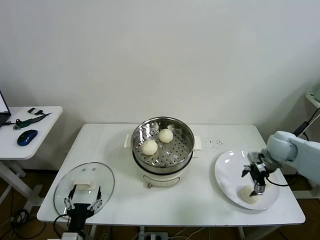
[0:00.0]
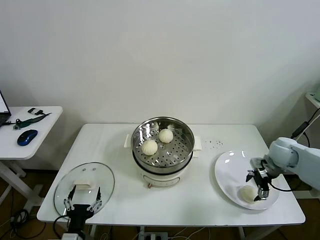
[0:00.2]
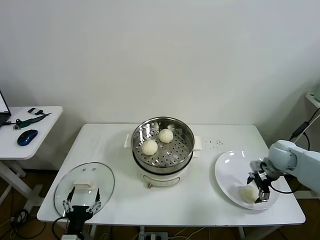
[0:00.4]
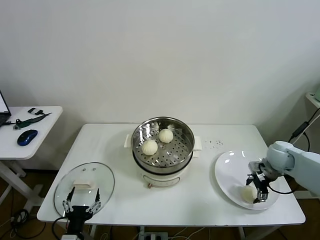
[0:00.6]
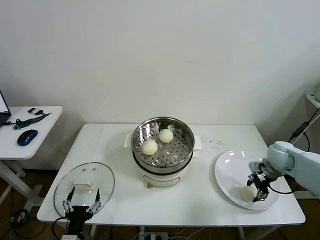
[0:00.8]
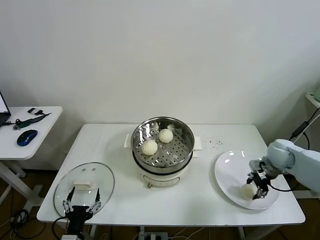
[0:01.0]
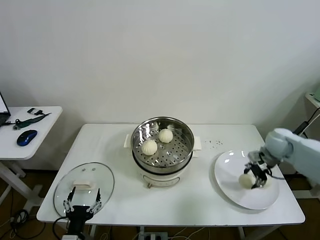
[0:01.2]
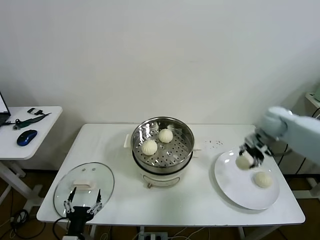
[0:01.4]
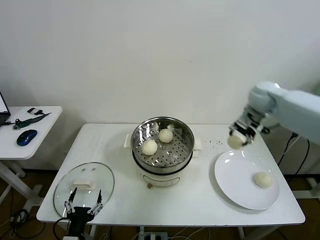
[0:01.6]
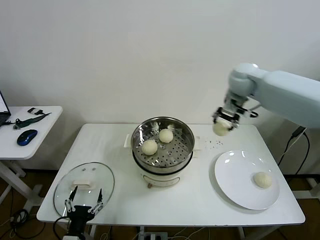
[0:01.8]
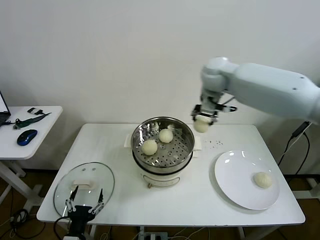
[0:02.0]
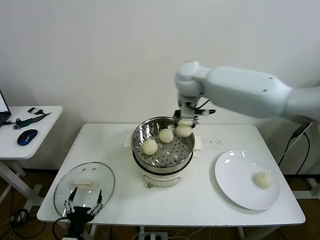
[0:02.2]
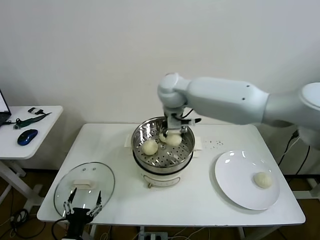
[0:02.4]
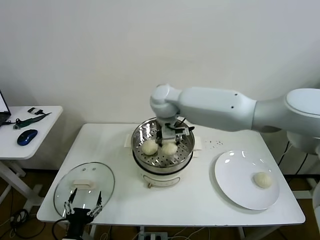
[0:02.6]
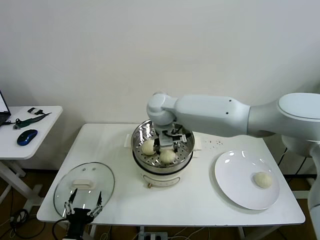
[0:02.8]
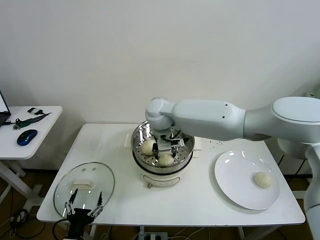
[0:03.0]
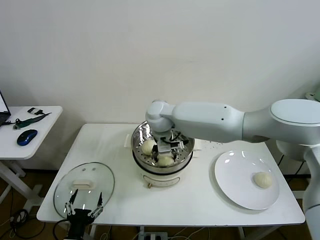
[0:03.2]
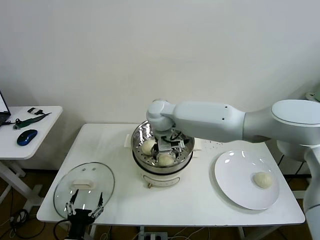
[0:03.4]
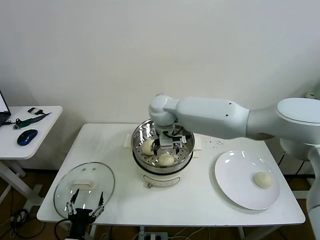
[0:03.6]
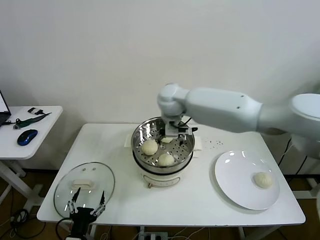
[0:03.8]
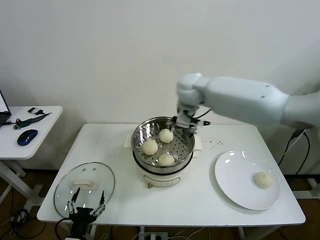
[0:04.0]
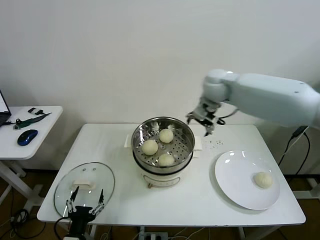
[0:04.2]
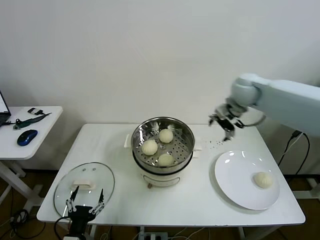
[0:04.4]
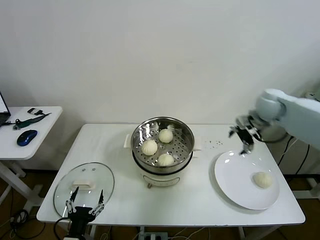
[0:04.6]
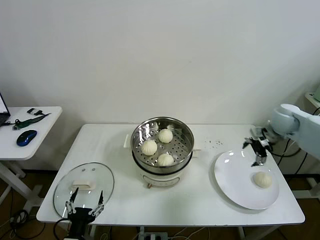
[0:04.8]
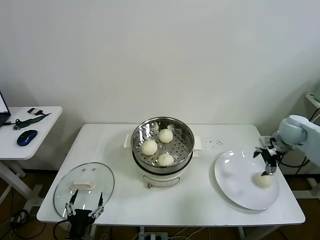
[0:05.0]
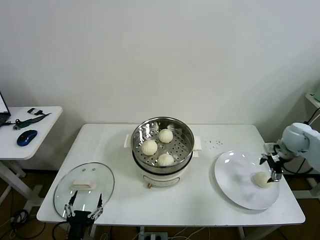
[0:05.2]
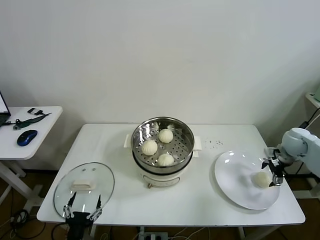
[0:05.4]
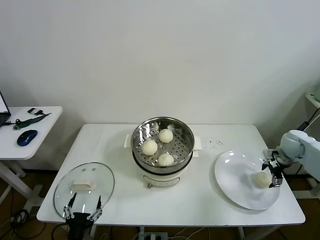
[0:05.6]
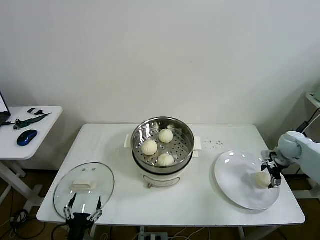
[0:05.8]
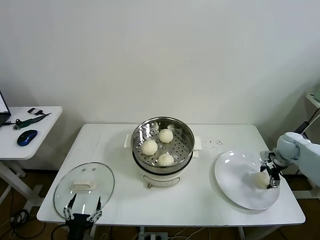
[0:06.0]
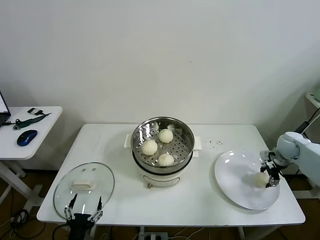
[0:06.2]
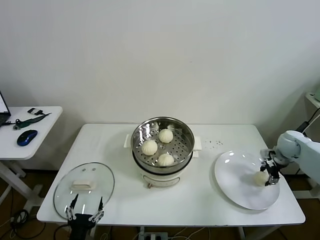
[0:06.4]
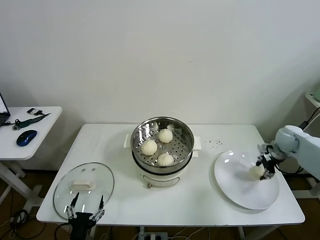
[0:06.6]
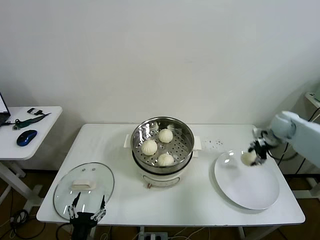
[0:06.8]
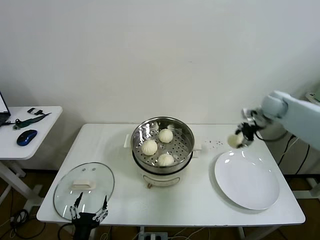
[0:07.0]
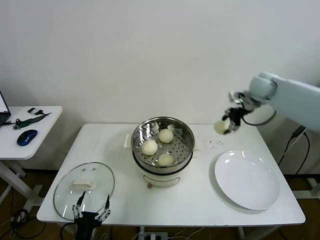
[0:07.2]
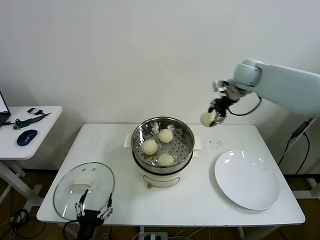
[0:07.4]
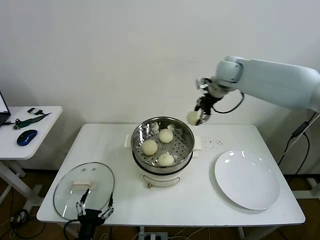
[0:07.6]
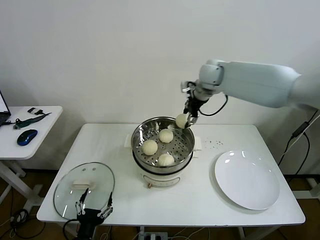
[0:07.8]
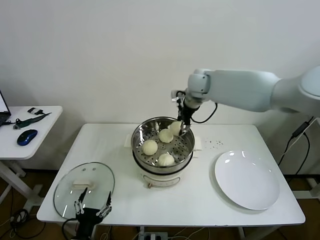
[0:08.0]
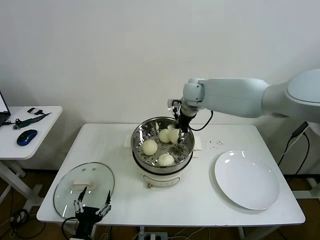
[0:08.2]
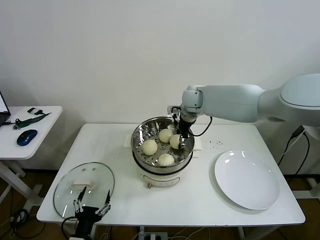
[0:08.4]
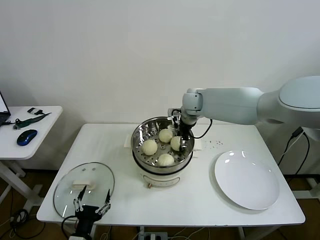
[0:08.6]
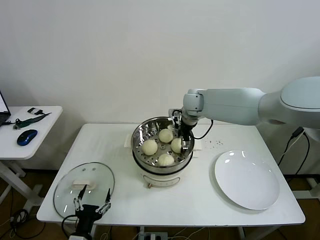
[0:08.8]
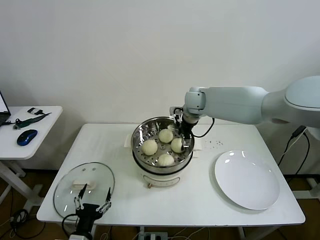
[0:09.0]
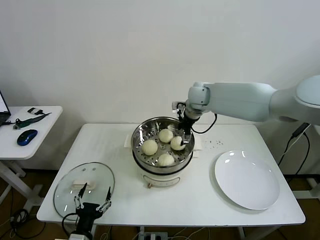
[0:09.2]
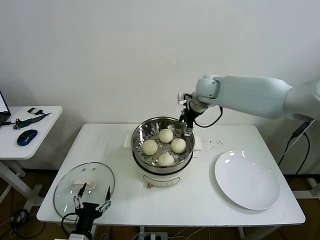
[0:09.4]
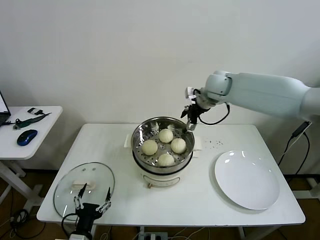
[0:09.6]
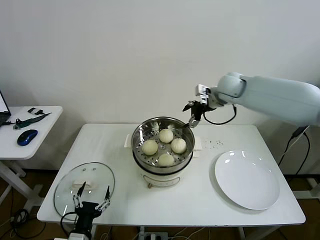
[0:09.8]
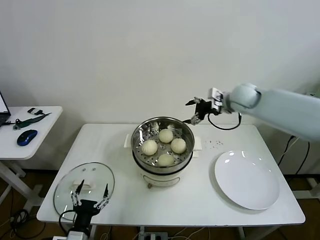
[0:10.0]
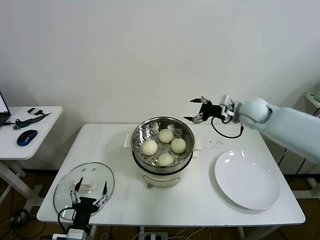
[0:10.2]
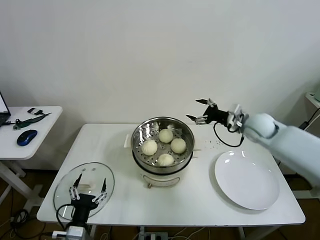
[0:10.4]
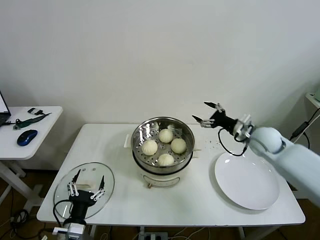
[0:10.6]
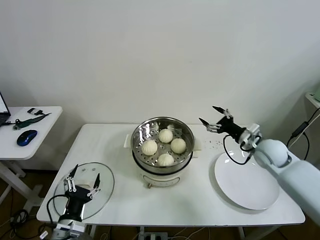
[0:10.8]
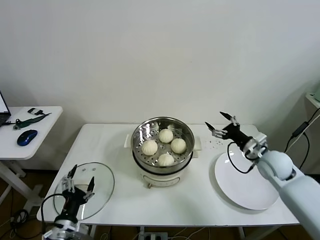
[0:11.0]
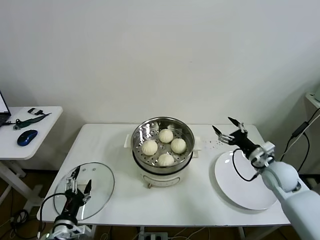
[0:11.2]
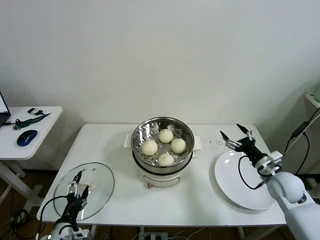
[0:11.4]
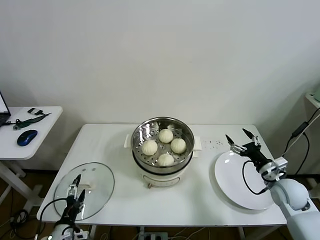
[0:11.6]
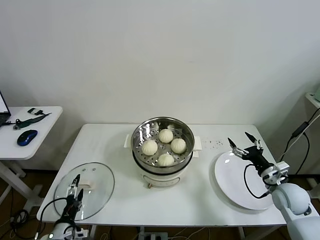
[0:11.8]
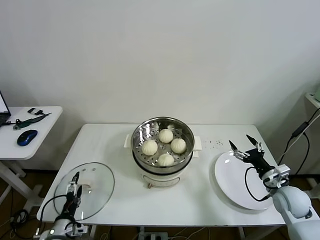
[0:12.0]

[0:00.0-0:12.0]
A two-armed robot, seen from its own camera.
Task of the whole recording: take steamed baozi put them in steamer then cover it.
Step, 0:01.2 to 0:03.4: Place the baozi on the steamer with right gripper.
Step, 0:03.6 to 0:06.2: Grasp the baozi in the plate with right gripper.
Step, 0:06.4 to 0:08.6: Place the baozi on the steamer with right gripper.
0:00.0 to 0:01.6: The right gripper moves upward, forward and to the left, some 20 cm, and closes.
0:01.6 to 0:03.0: The right gripper is displaced to the left by roughly 30 cm.
0:03.0 to 0:04.4: The right gripper moves to the right, approximately 30 cm, and opens.
0:04.4 to 0:06.0: The right gripper goes about 30 cm downward and to the right.
0:06.0 to 0:07.6: The right gripper moves to the left, upward and forward, approximately 40 cm, and closes.
0:07.6 to 0:09.0: The right gripper travels downward and to the left by approximately 15 cm, and opens.
0:09.0 to 0:10.4: The right gripper travels to the right and backward by some 20 cm.
0:10.4 to 0:12.0: The right gripper shifts some 25 cm backward, downward and to the right, while the left gripper shifts approximately 10 cm to the left and downward.

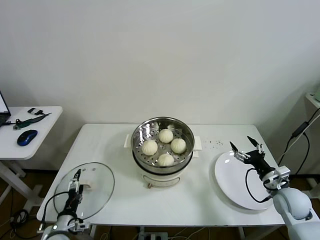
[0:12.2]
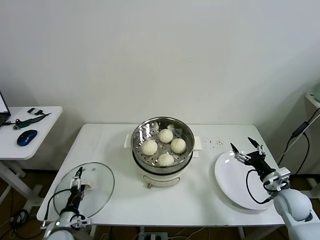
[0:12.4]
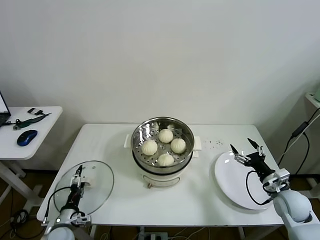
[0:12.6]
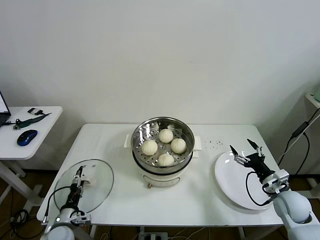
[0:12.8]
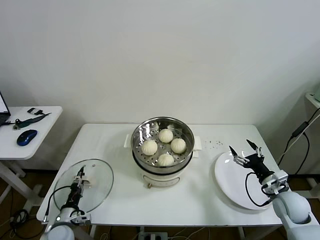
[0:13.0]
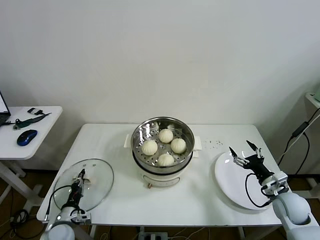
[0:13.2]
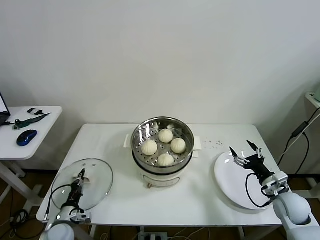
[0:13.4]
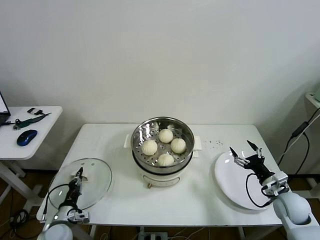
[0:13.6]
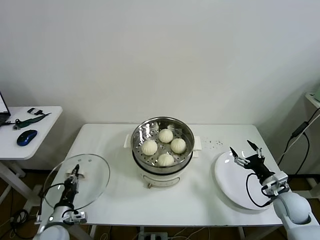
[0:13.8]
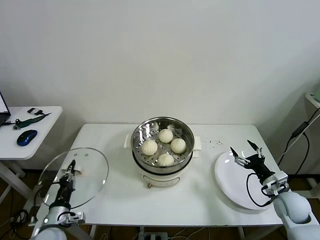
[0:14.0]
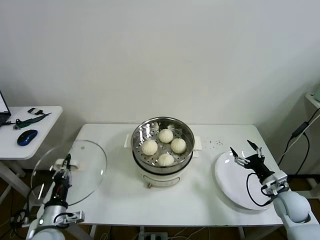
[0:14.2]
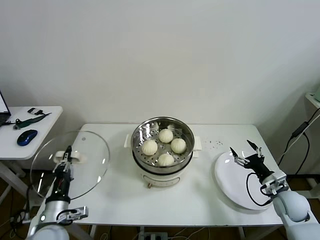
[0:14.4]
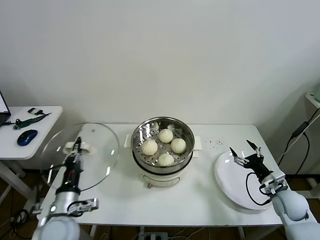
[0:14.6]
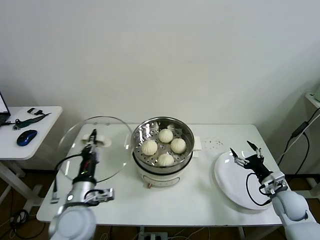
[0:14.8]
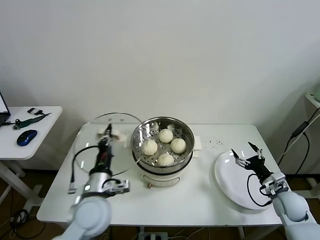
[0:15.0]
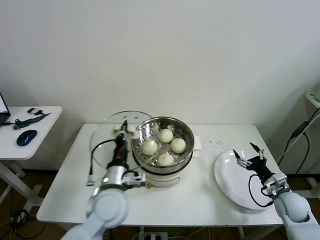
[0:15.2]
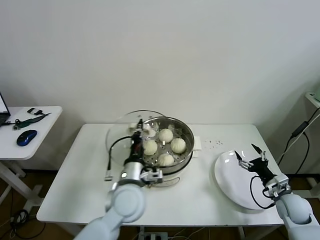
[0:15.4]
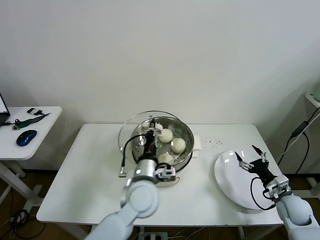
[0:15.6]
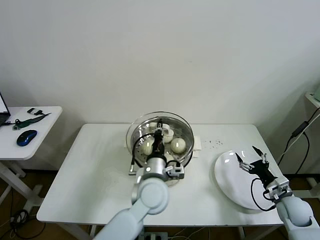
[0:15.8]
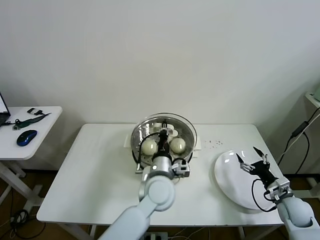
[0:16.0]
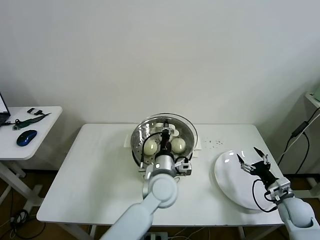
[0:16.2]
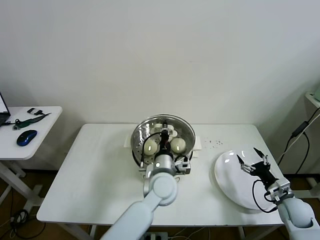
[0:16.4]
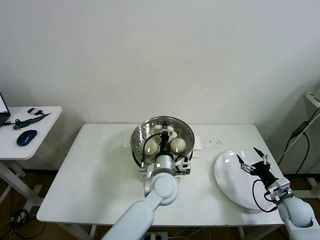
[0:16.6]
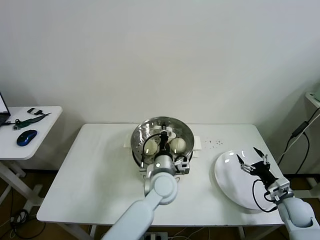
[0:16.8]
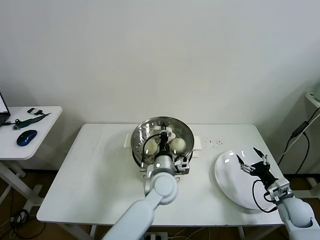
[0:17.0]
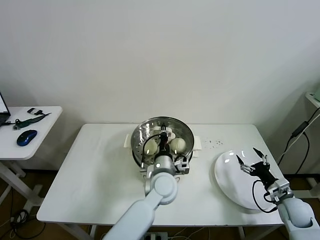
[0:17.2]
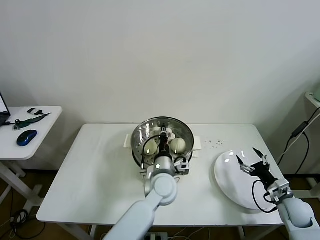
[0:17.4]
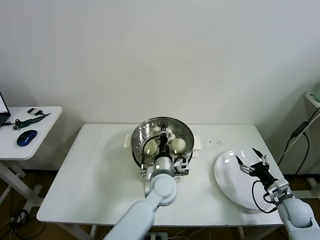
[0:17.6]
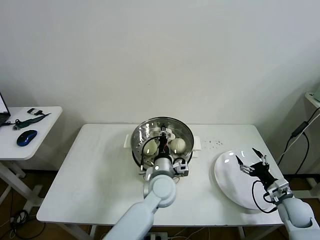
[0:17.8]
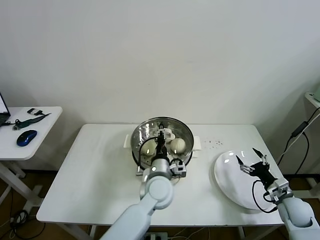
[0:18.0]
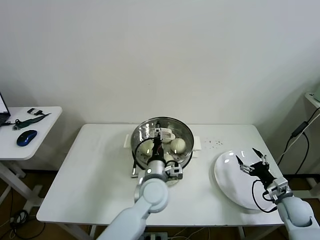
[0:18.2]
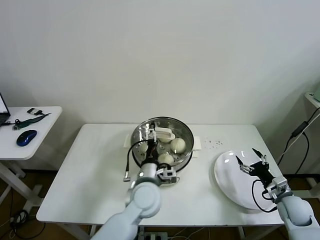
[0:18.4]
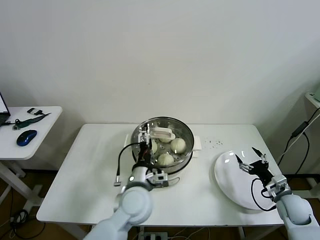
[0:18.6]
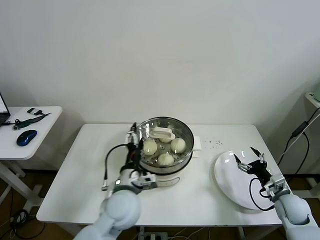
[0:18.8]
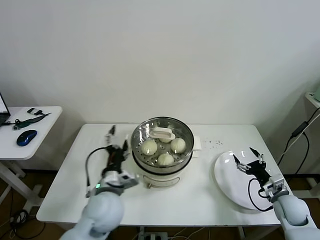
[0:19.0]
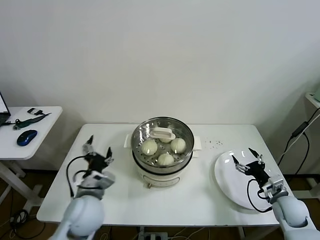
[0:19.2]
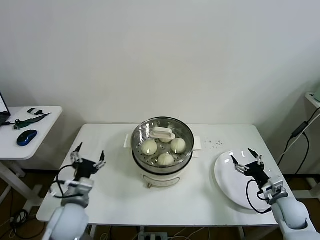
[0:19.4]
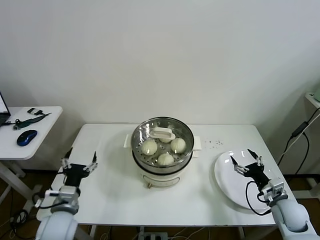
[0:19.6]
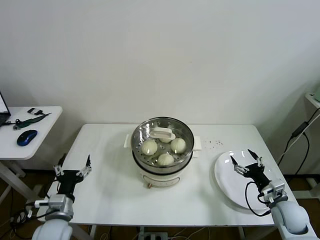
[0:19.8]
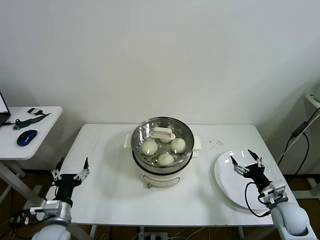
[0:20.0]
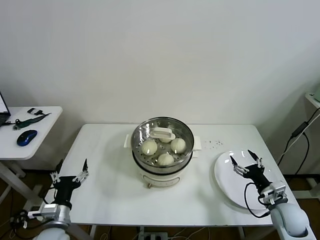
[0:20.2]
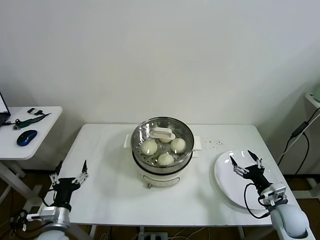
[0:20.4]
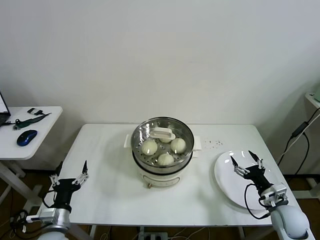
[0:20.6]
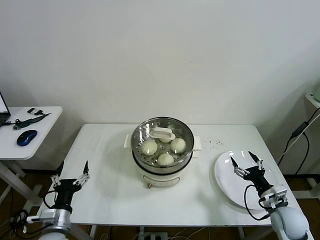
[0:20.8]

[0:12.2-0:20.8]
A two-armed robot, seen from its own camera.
Task of the whole recording: take steamed baozi put them in steamer then cover it.
Step, 0:13.4 to 0:17.8: Place the pot lid on the steamer with left gripper.
0:12.2 to 0:13.6: The left gripper closes.
0:13.6 to 0:15.0: The left gripper moves upward and to the right, roughly 25 cm.
0:15.0 to 0:16.6: The left gripper moves to the right and forward, some 20 cm.
0:16.6 to 0:18.0: The grippers move only a little.
0:18.0 to 0:19.4: The left gripper goes about 25 cm to the left, and opens its fingers.
0:19.4 to 0:20.8: The left gripper shifts roughly 10 cm to the left, downward and backward.

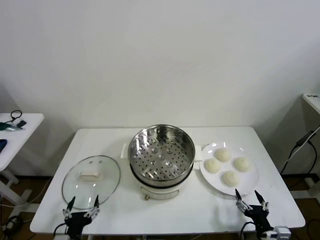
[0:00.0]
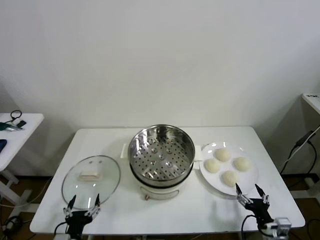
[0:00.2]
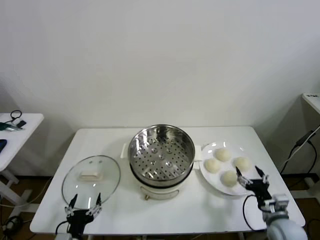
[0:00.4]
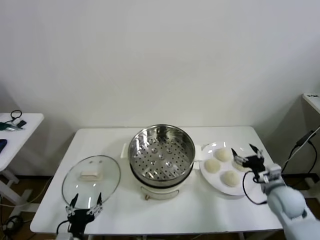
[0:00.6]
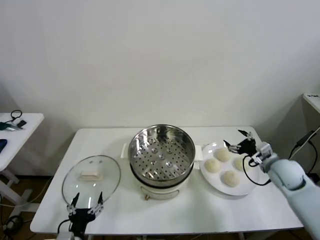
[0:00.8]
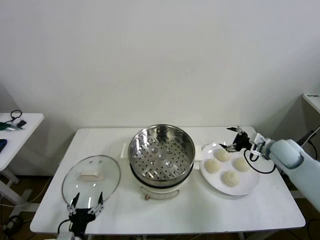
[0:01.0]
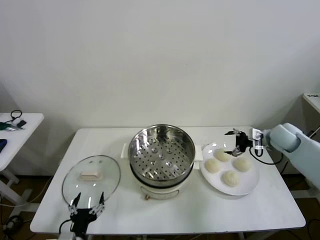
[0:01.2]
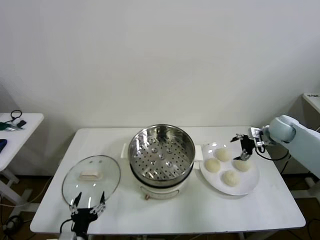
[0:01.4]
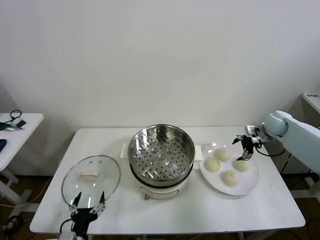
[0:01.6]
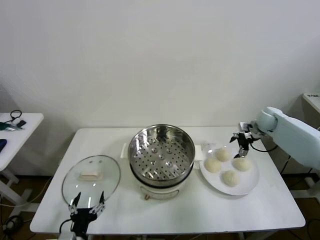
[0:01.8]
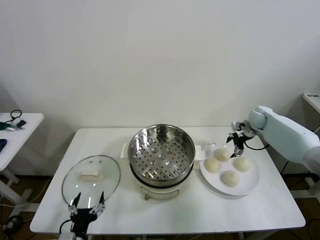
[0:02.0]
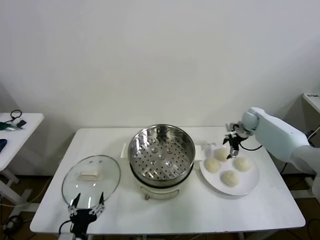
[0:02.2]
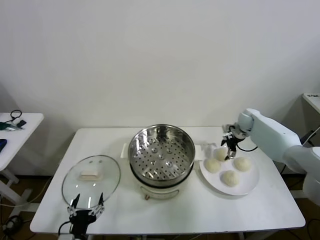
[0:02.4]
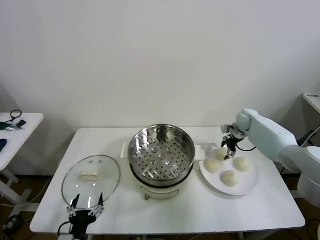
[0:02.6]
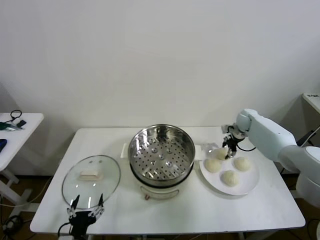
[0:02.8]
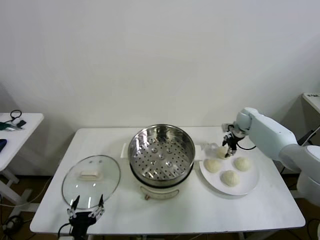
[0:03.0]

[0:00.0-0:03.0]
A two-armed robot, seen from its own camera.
Task of the whole recording: take steamed baozi put them in steamer then cover it.
Step, 0:00.0 to 0:03.0: Grasp the baozi in the plate with right gripper.
0:01.6 to 0:03.0: The right gripper heads forward and to the left, covering some 10 cm, and closes.
